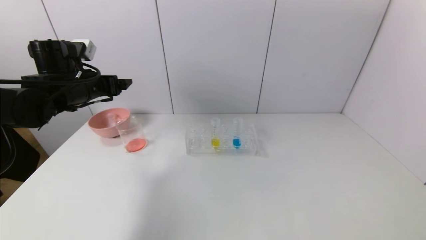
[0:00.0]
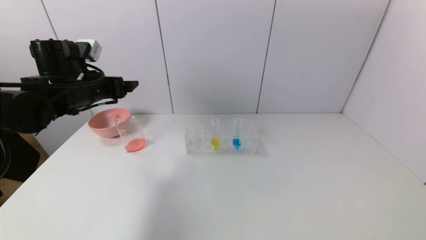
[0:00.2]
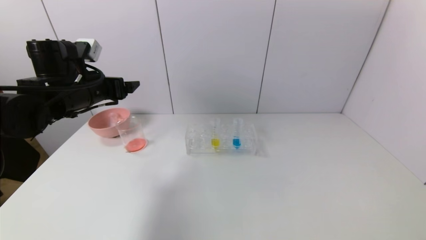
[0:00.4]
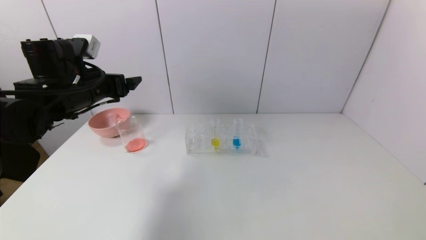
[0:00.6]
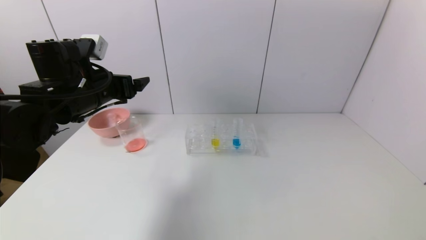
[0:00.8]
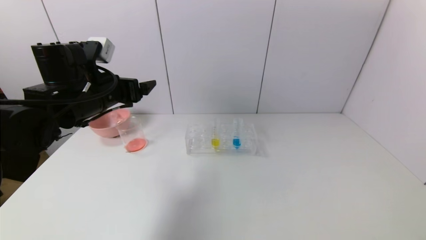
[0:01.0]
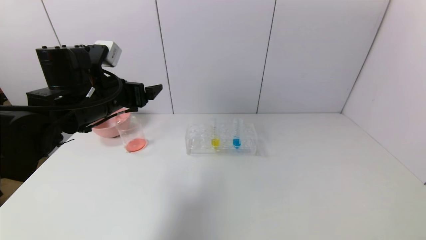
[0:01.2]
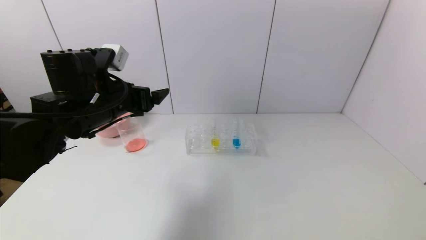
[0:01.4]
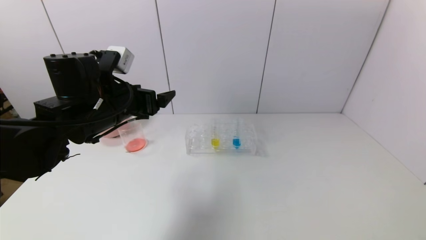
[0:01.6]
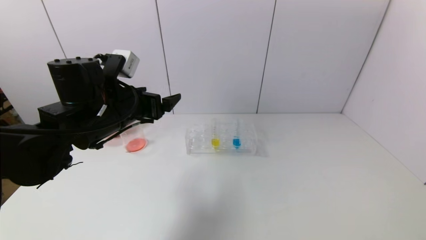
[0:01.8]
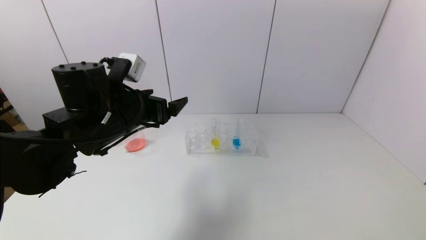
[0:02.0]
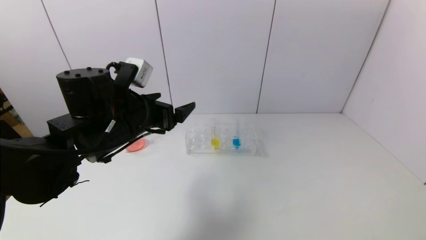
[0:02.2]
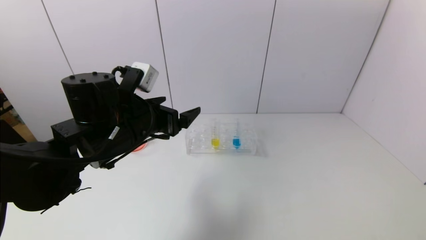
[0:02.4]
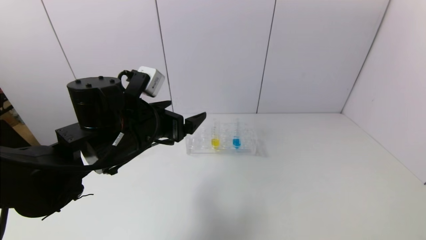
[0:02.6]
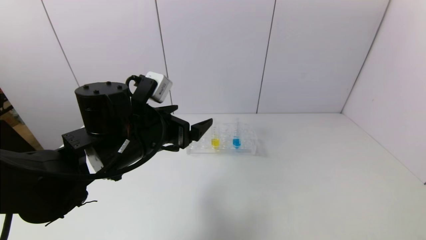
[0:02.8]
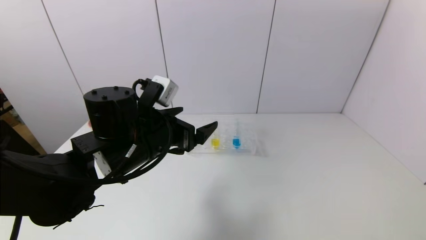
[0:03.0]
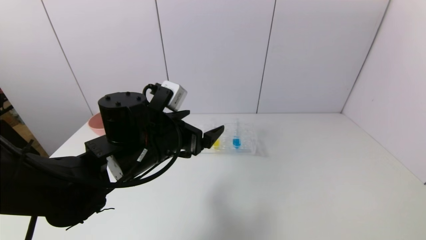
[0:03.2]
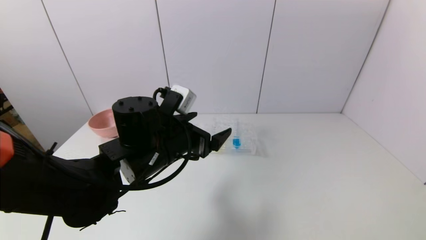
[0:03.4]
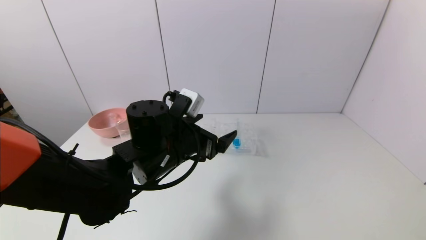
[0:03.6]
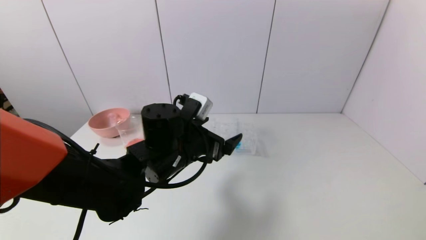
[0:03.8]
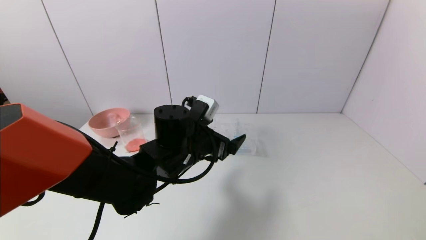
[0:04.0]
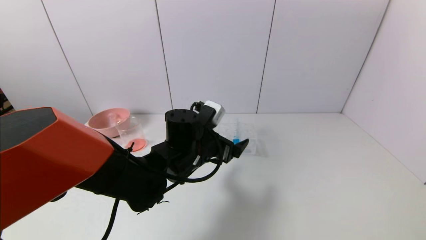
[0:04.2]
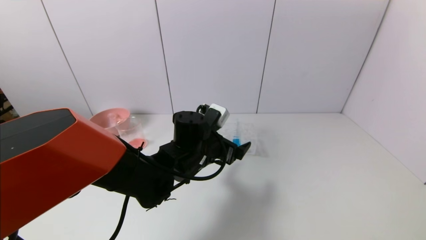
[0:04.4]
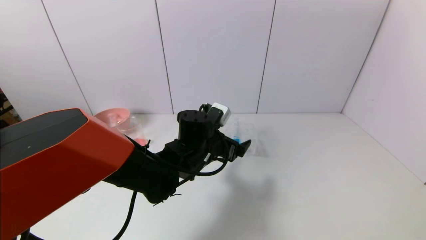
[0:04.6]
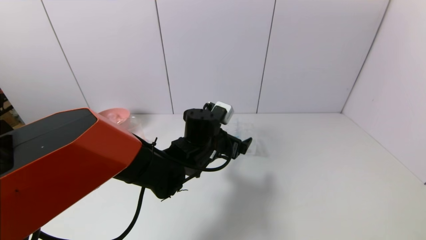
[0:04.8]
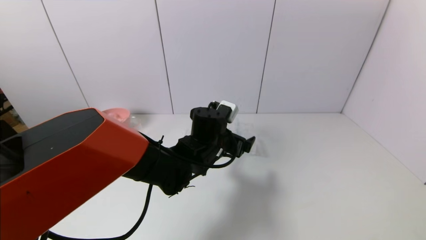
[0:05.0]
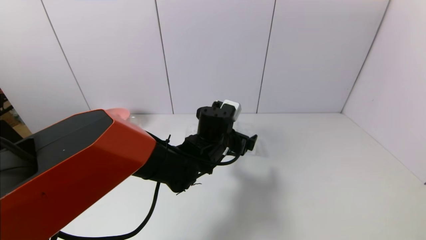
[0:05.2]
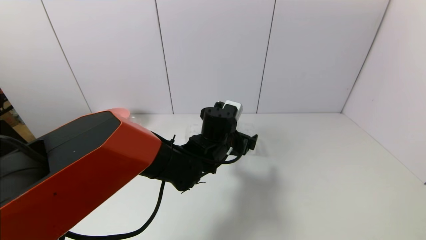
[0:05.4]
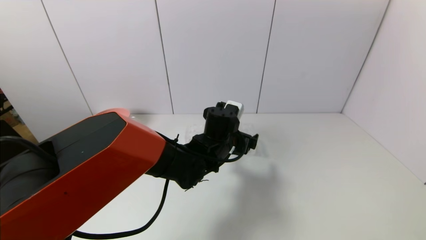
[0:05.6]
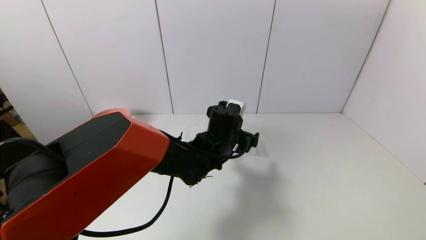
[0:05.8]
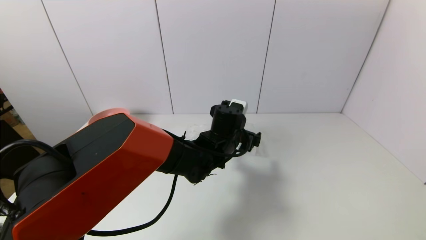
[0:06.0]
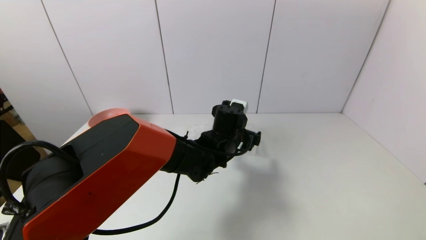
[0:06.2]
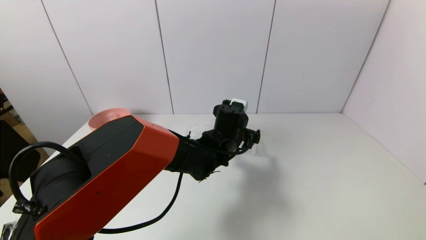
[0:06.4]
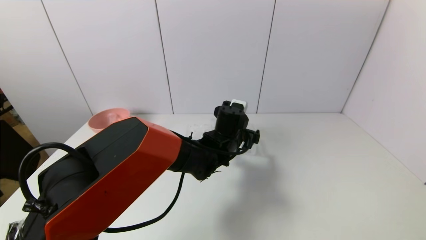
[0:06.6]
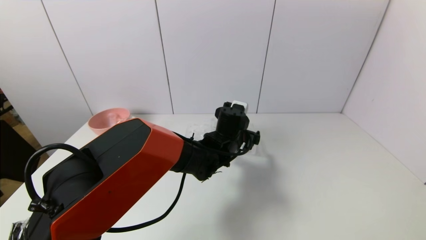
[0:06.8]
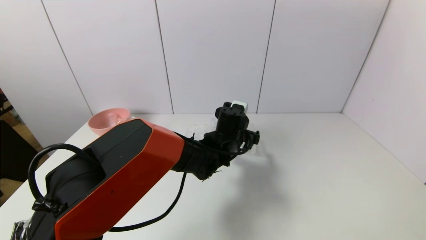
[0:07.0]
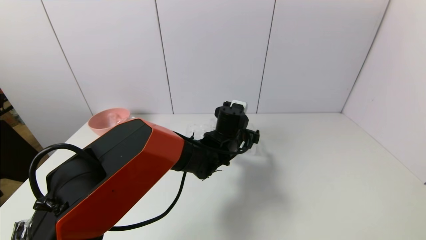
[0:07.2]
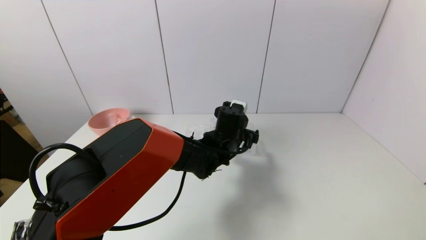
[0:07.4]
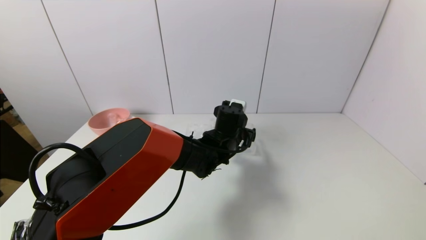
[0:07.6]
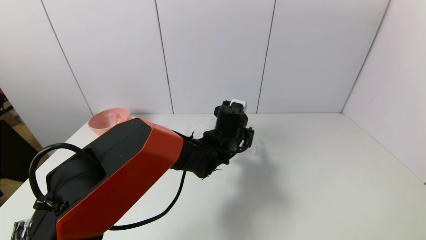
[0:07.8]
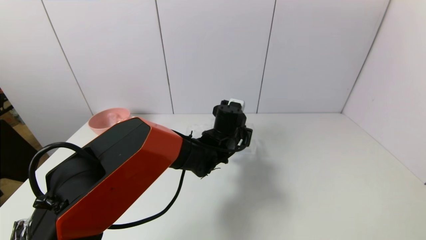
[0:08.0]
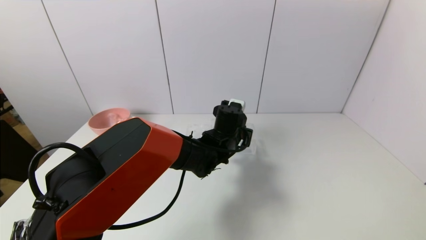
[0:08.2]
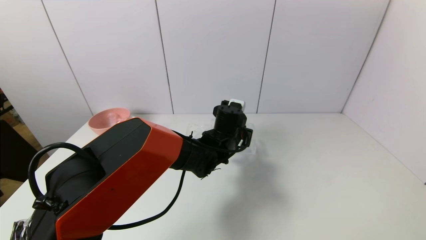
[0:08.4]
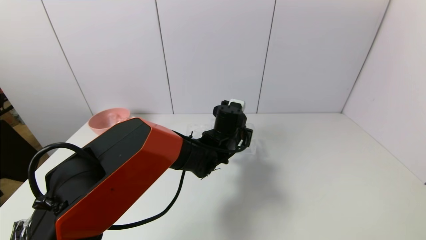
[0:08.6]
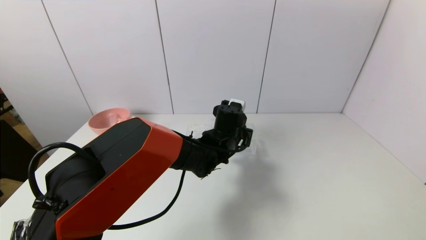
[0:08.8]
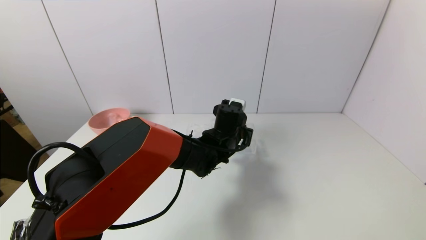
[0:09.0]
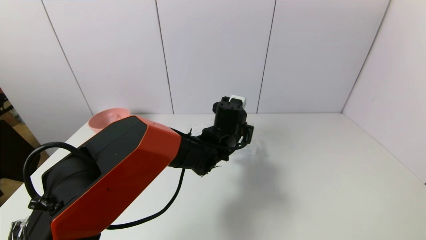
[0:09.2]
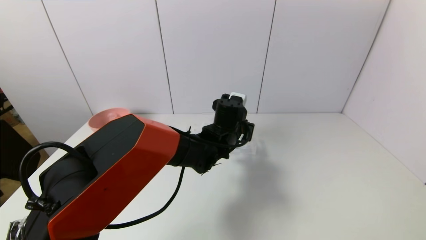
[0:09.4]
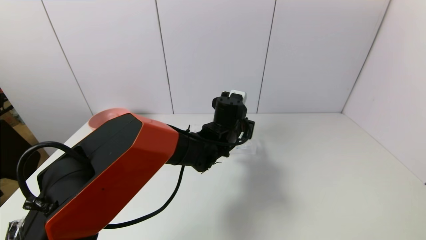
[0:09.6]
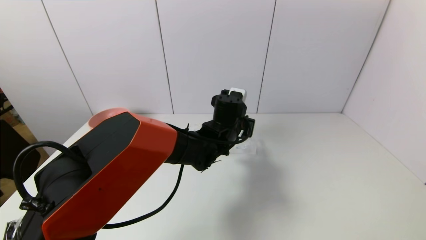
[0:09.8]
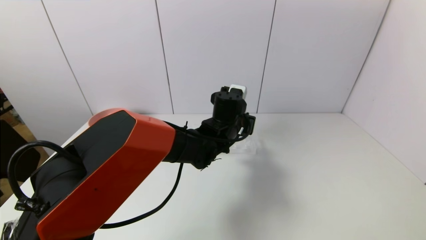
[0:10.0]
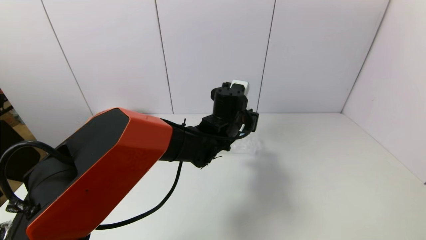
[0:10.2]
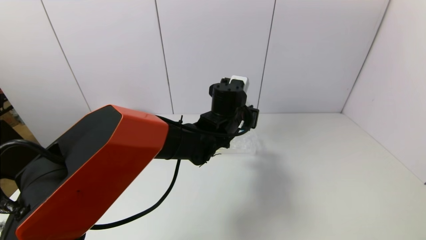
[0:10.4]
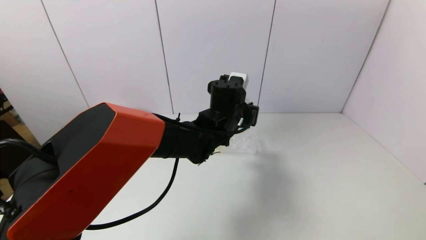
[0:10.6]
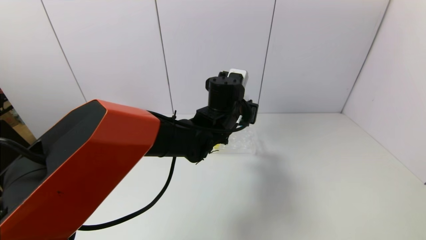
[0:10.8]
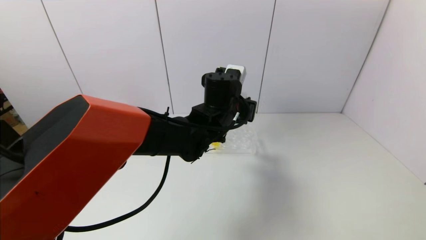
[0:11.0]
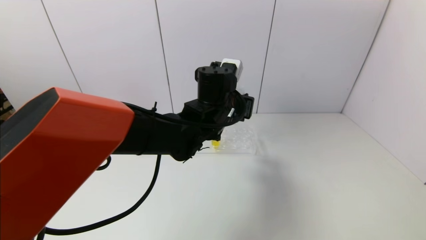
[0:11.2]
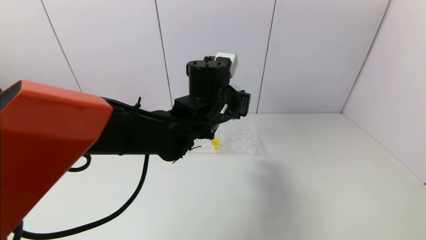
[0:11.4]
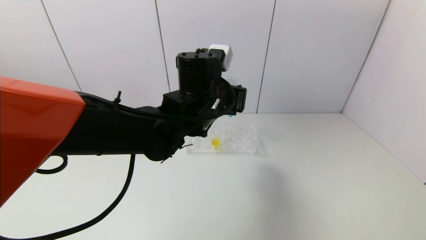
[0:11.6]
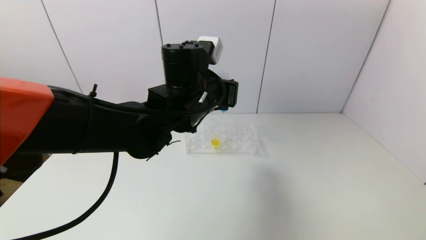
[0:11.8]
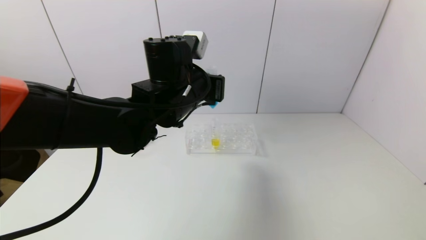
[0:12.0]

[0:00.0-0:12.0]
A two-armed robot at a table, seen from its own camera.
Task of the whole recording: pick up the test tube with red pigment and the test tube with blue pigment by grippers and pour them into the container.
Step, 0:00.0 to 0:08.8: Grasp the blue reagent with the left gripper.
0:00.0 to 0:01.6: The left gripper goes roughly 10 cm to the right and backward.
0:01.6 to 0:03.0: The left gripper heads to the right, covering roughly 5 cm.
0:03.0 to 0:04.4: The left gripper goes roughly 10 cm to the right, downward and forward.
0:04.4 to 0:06.0: The left gripper heads to the right, covering about 5 cm.
0:06.0 to 0:07.6: There are only small adjustments of the grippers.
0:07.6 to 0:09.0: The left gripper closes up.
0:09.0 to 0:10.4: The left gripper shifts some 5 cm upward.
0:10.4 to 0:12.0: The left gripper shifts about 15 cm to the left, upward and backward.

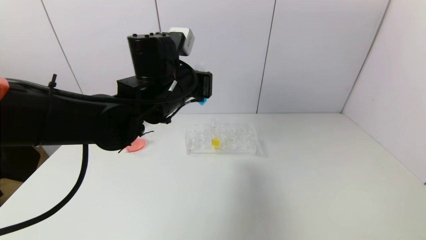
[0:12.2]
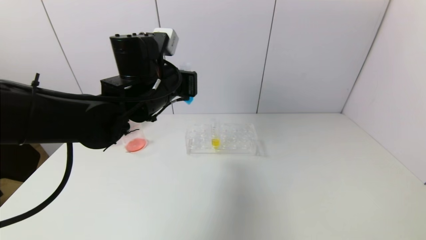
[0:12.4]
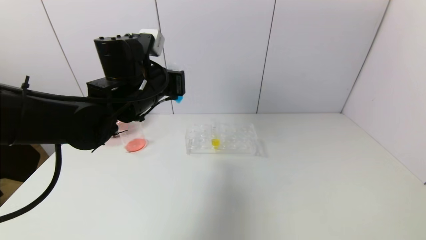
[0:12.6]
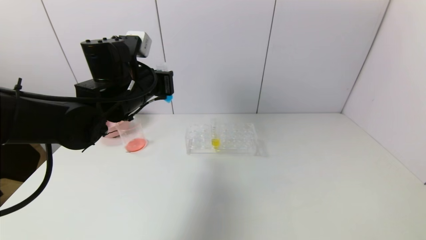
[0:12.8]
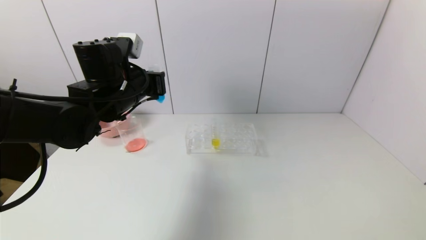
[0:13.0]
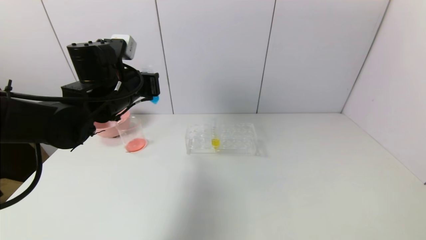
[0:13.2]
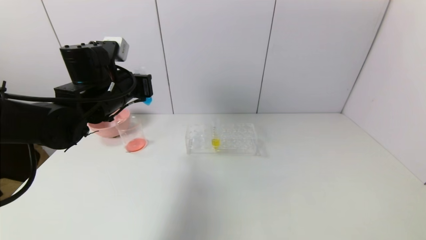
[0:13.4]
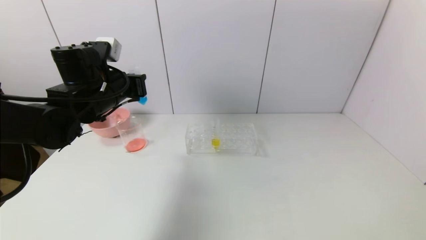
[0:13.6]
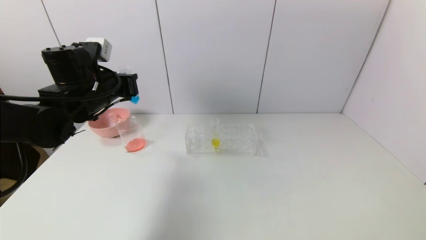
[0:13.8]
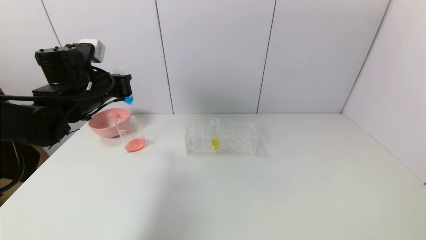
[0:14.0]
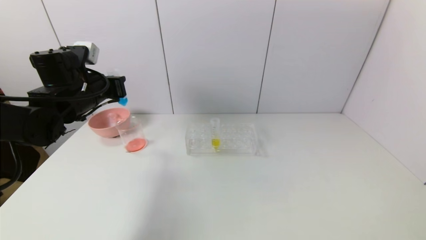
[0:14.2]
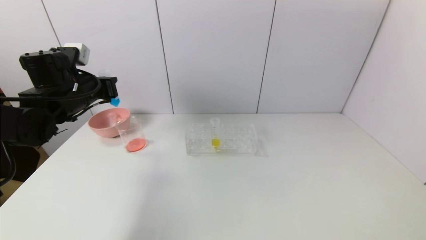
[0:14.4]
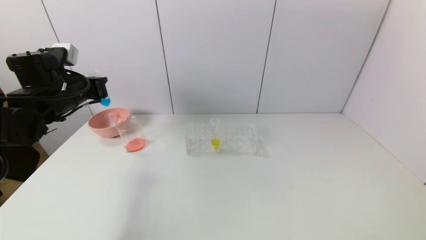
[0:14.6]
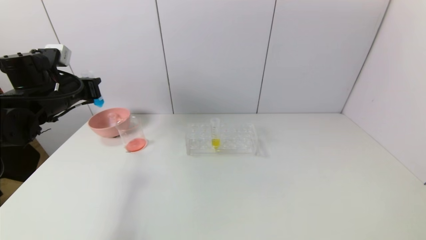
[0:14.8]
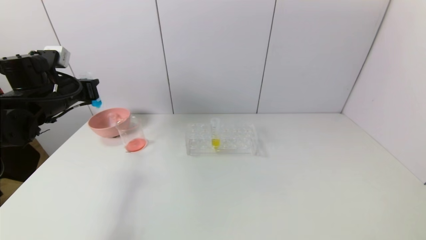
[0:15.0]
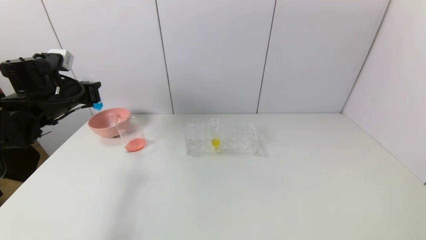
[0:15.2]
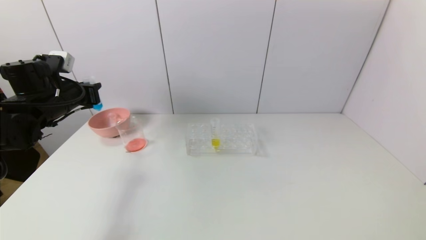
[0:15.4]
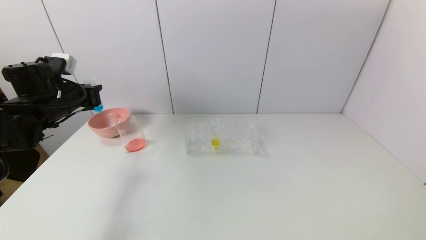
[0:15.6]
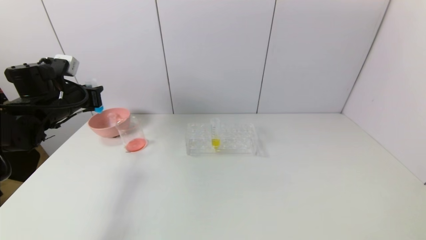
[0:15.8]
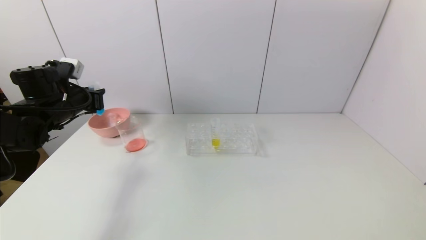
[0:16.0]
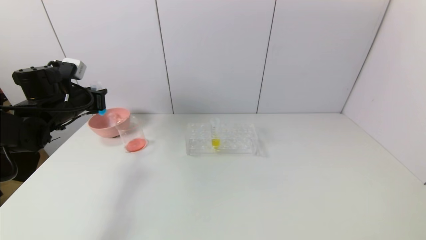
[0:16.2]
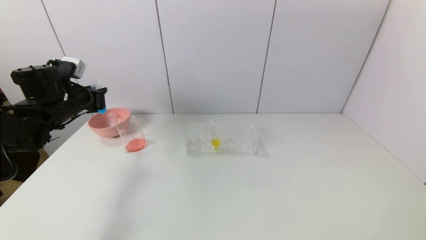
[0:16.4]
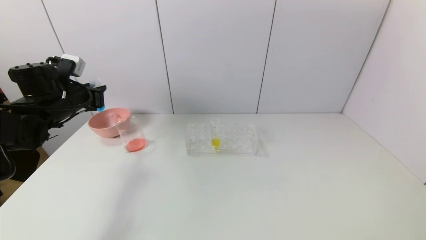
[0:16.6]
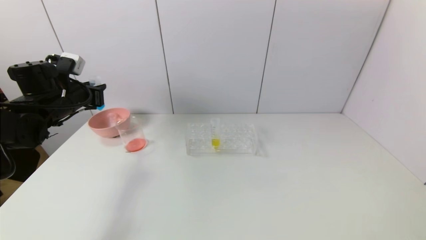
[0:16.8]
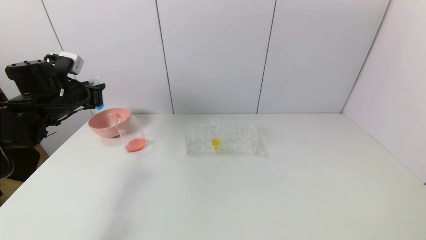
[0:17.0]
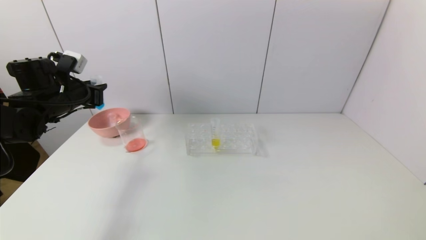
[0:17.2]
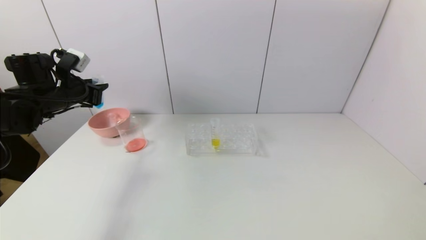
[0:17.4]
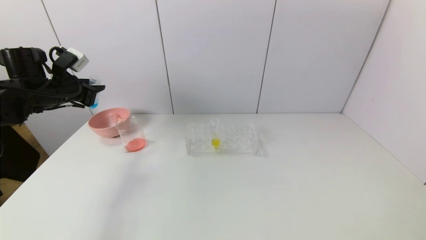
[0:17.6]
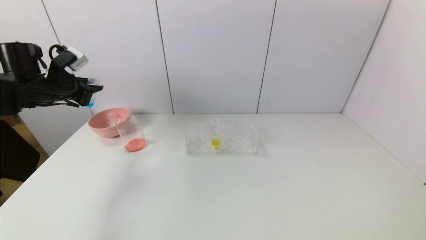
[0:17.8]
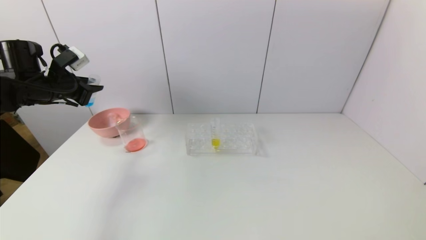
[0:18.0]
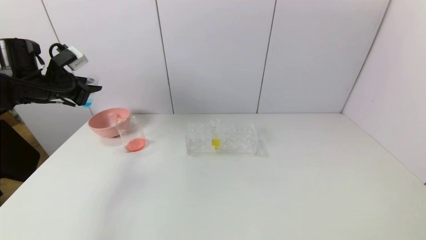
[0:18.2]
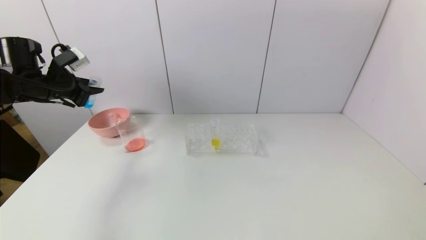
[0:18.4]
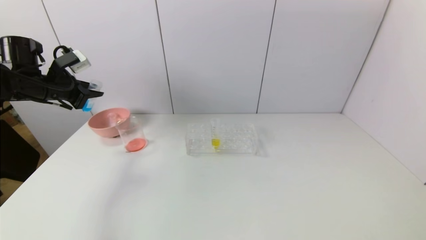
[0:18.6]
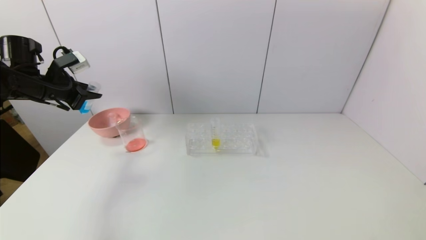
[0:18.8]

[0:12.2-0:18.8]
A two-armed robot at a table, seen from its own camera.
Task of the whole recording: pick up the test tube with red pigment and the test tube with blue pigment by grippers and pour them into the container.
0:12.2 to 0:13.8: The left gripper heads to the left, covering approximately 15 cm.
0:13.8 to 0:15.4: The left gripper goes approximately 10 cm to the left.
0:15.4 to 0:17.2: The grippers stay close to where they were, moving slightly.
0:17.2 to 0:18.8: The left gripper ends up about 5 cm from where it was.
